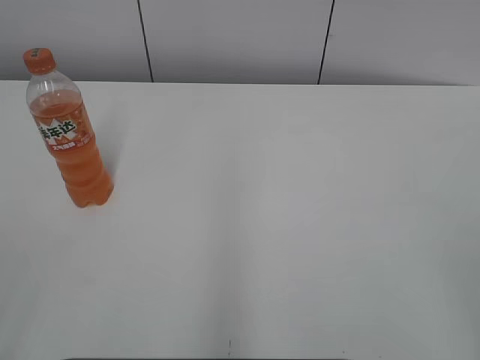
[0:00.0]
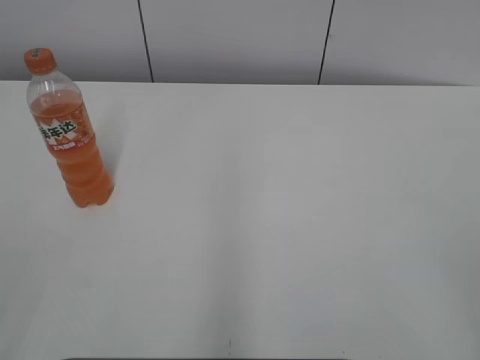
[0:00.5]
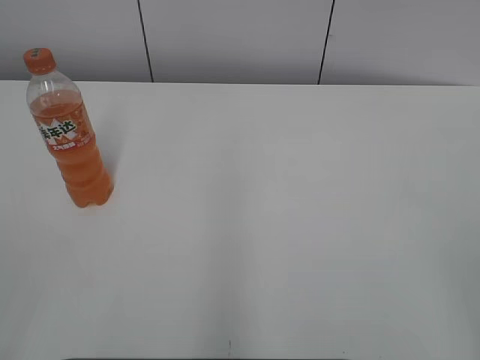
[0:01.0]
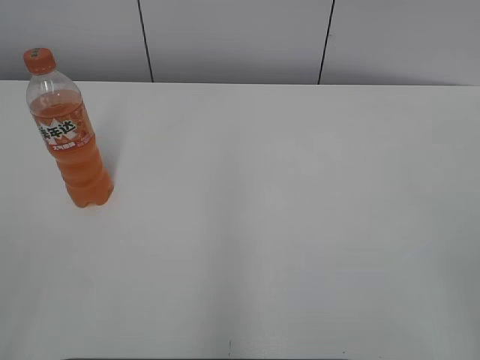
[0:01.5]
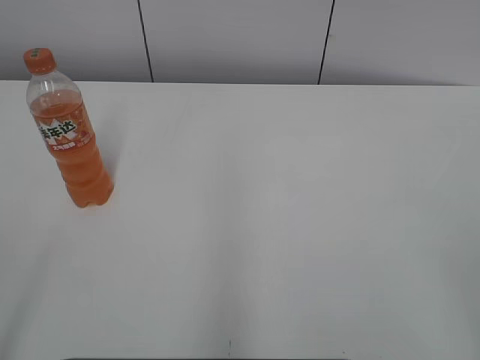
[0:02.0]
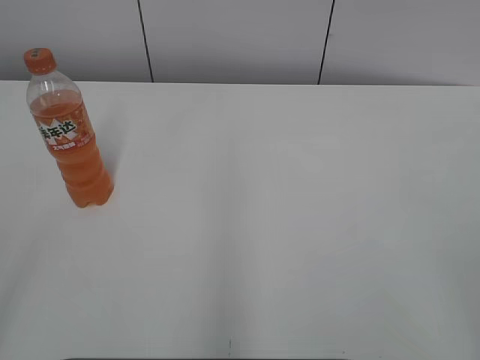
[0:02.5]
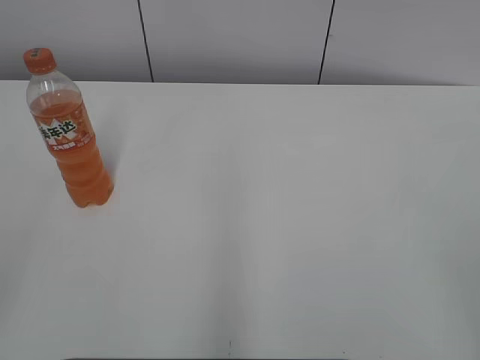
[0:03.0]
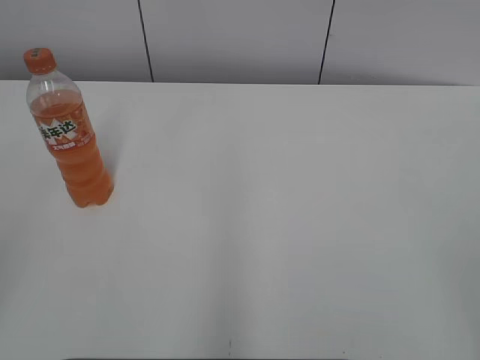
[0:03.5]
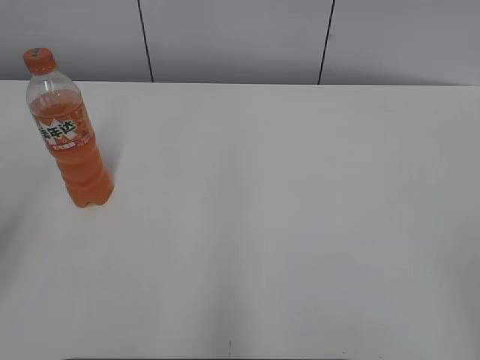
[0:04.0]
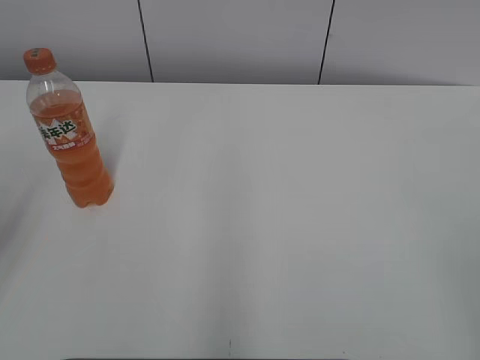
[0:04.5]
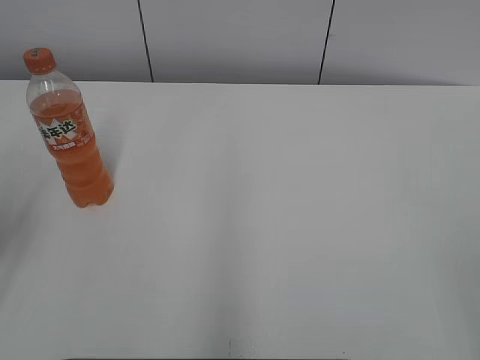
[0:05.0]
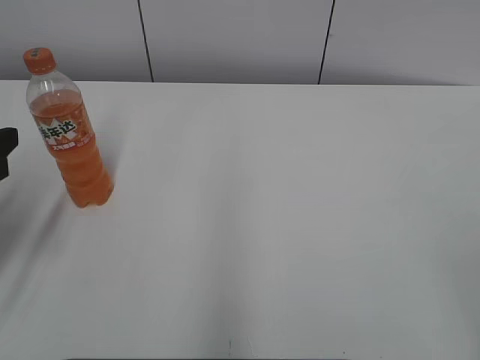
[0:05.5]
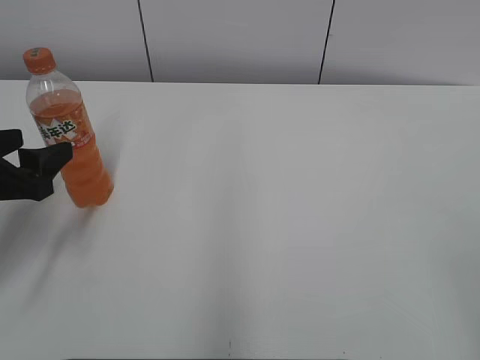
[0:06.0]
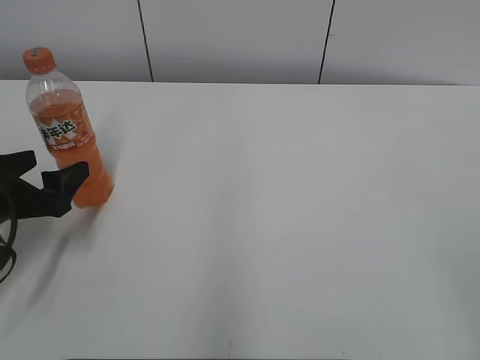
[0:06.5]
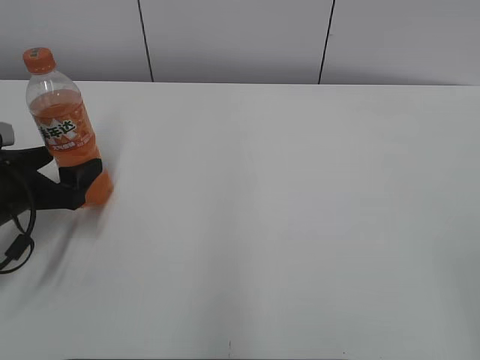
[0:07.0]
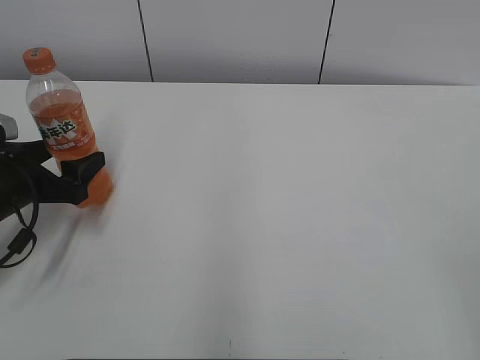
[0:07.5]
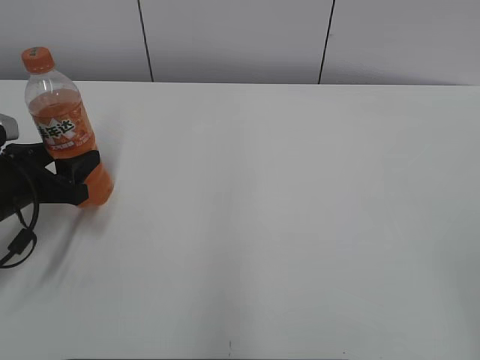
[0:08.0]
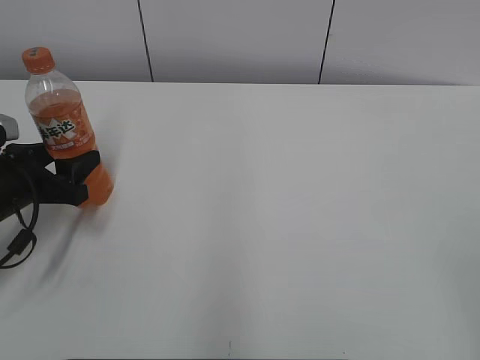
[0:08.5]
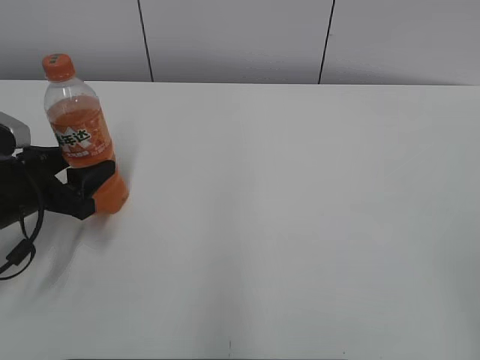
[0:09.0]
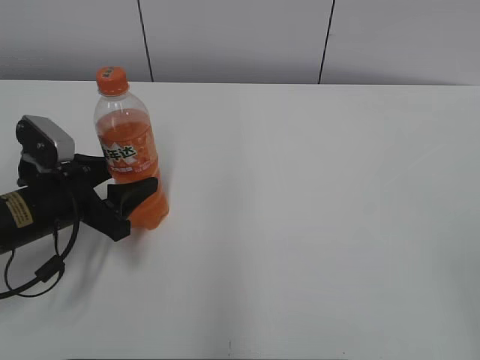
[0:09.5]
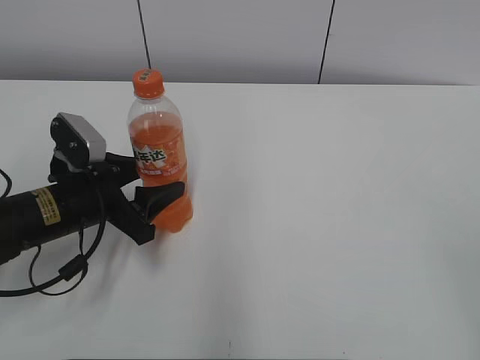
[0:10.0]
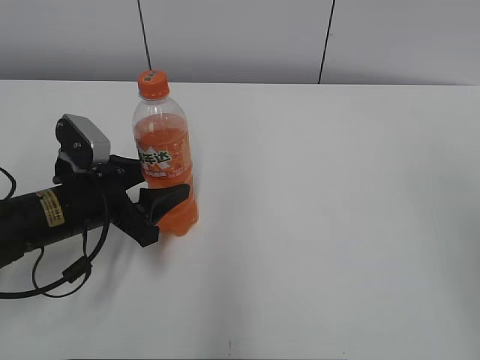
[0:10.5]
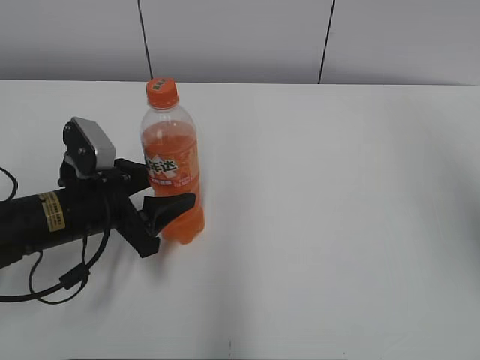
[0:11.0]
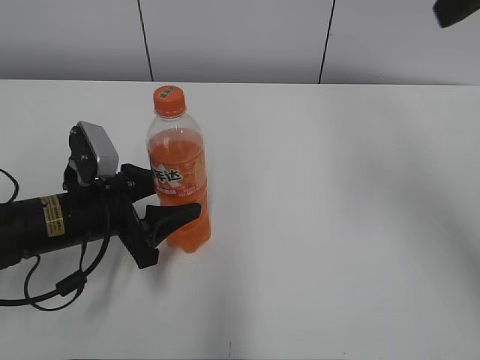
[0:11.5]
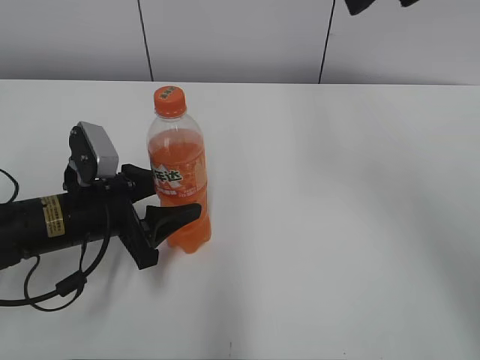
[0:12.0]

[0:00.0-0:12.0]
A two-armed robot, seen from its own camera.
Step, 0:00.0 to 0:08.5: Grab the Mirinda with the left hand.
Step, 0:09.0 to 0:11.0: Move the Mirinda from left to right.
0:04.0 to 0:06.0: The left gripper moves downward and forward, roughly 15 cm.
0:06.0 to 0:08.0: The left gripper travels downward by approximately 5 cm.
0:08.0 to 0:10.0: The left gripper goes about 10 cm to the right.
0:10.0 to 0:12.0: The right gripper is displaced forward and to the left by approximately 35 cm.

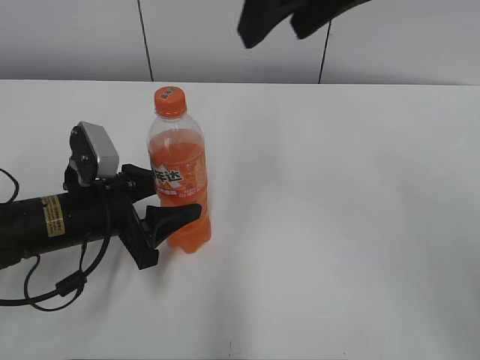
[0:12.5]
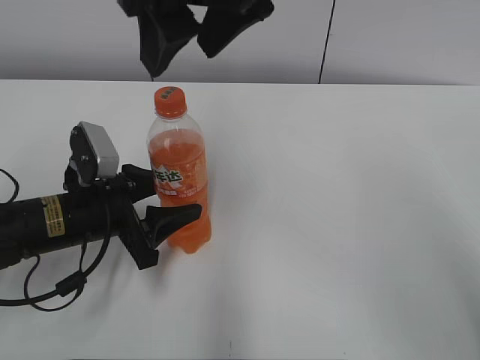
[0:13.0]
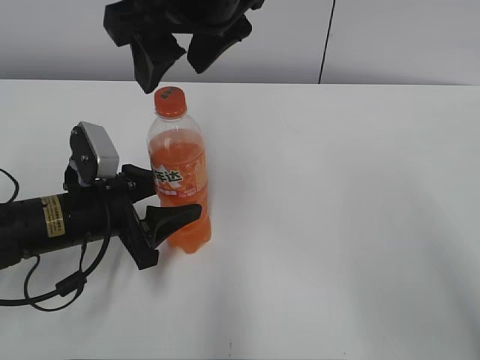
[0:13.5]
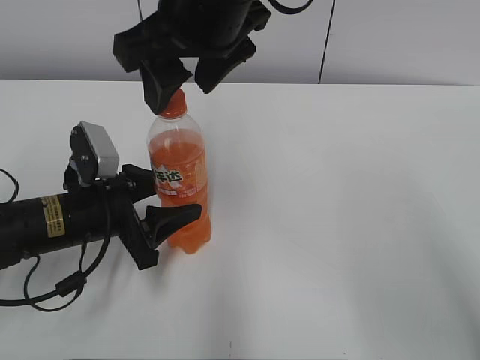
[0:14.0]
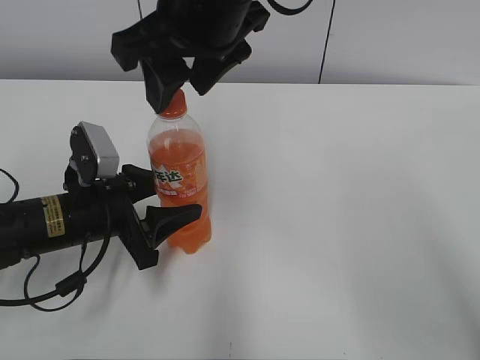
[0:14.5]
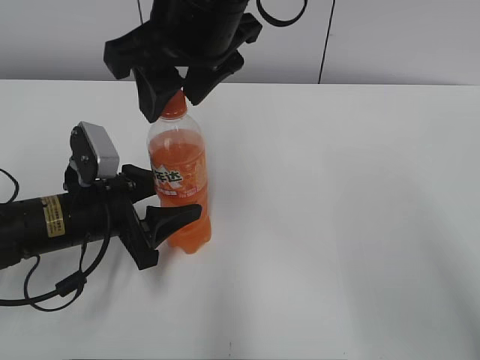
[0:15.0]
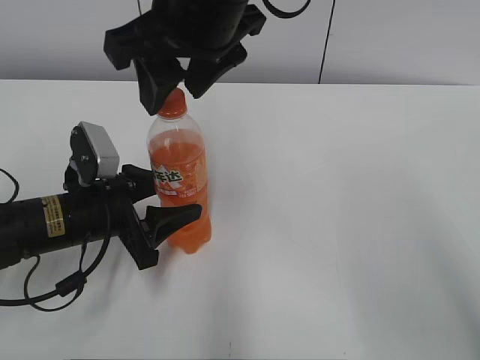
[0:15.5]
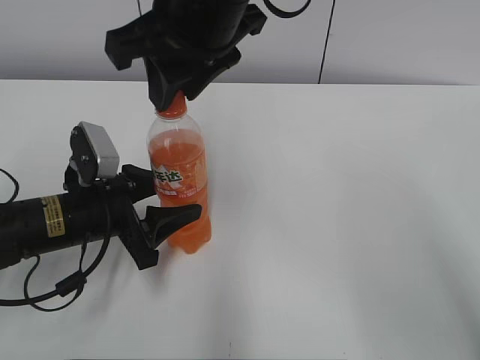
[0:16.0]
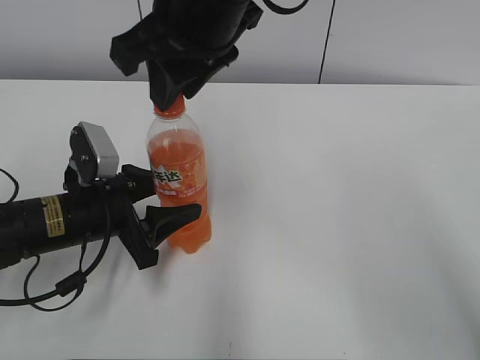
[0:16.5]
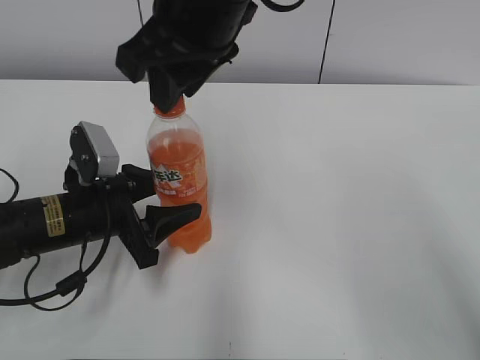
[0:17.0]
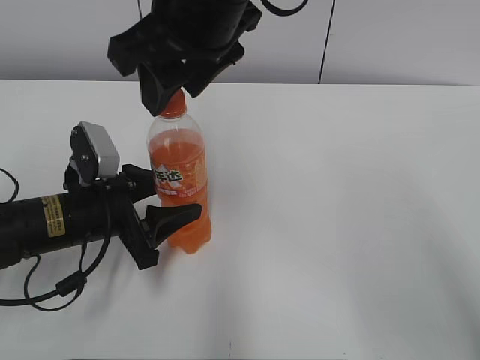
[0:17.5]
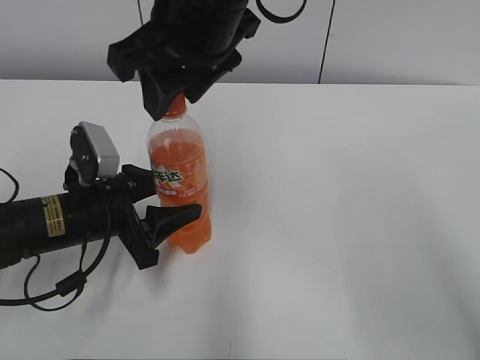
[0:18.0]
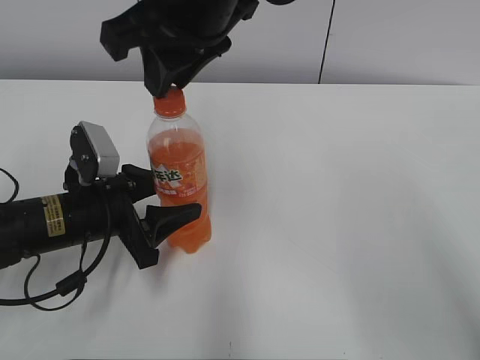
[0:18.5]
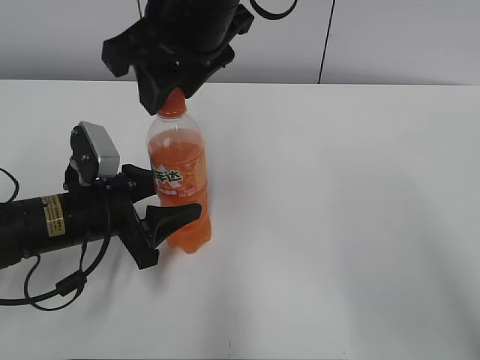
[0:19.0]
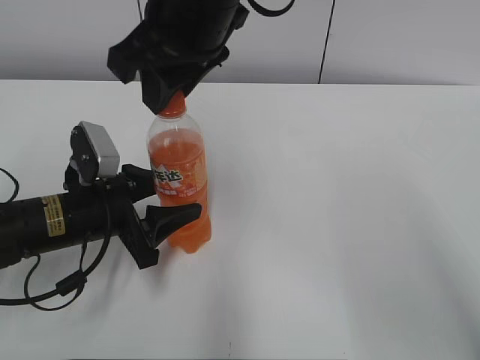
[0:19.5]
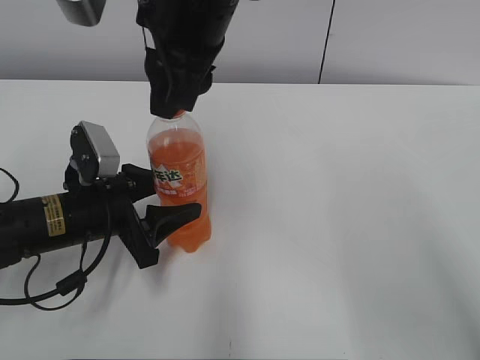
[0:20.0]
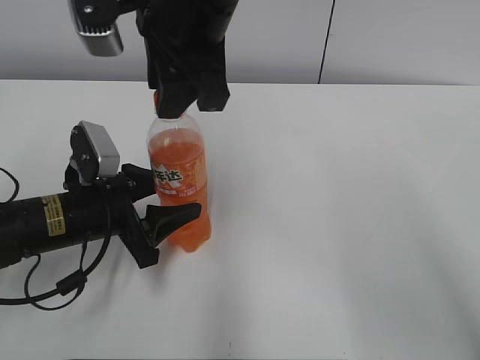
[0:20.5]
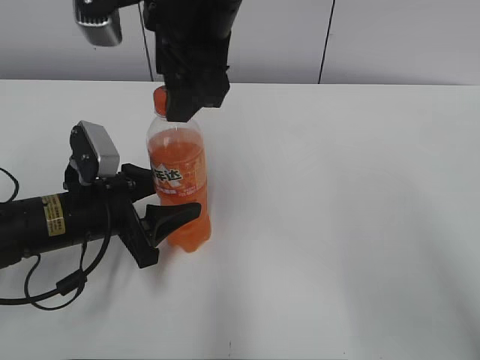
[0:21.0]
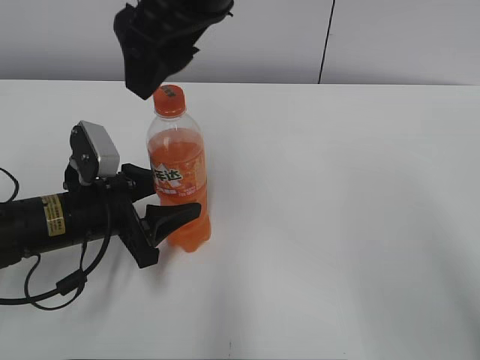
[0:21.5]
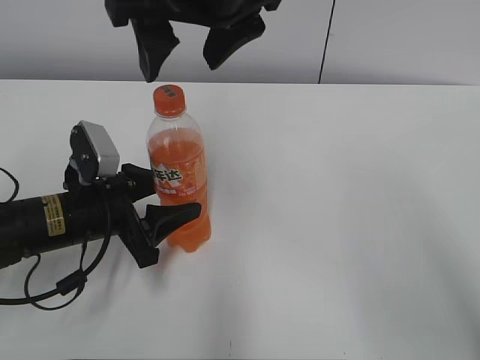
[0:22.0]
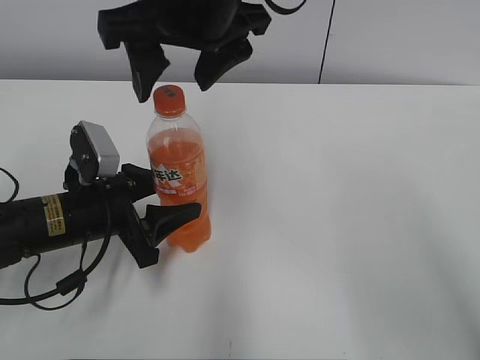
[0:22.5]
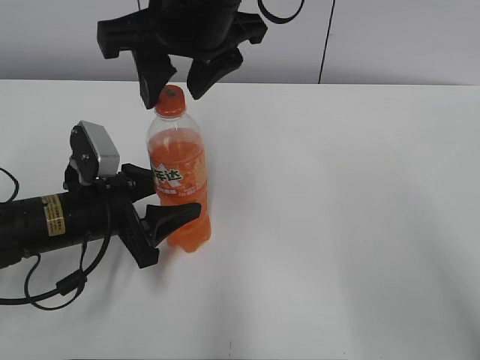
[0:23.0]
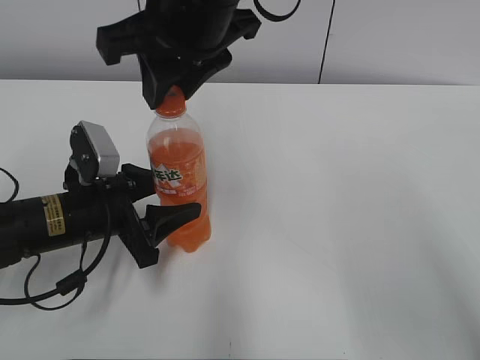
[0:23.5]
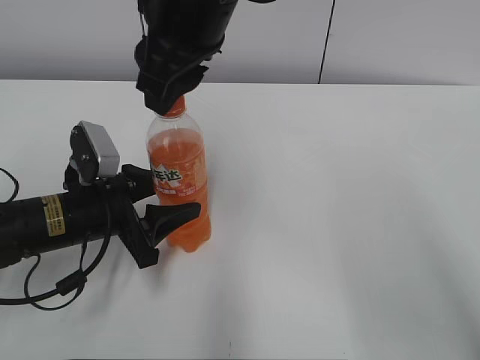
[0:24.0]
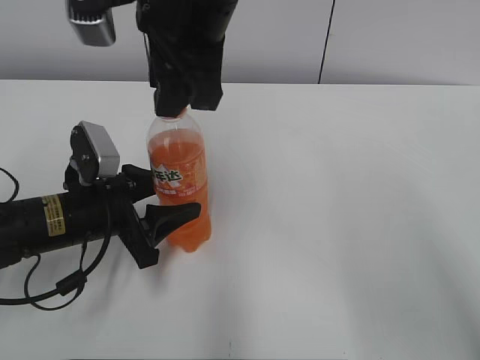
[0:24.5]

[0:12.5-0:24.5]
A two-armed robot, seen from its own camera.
0:12.5 to 0:14.5: The right gripper is displaced to the left and downward by roughly 10 cm.
0:14.5 to 0:16.5: The right gripper closes up.
0:16.5 to 0:18.5: The right gripper opens, then closes once more.
0:20.5 to 0:22.5: The right gripper opens.
0:22.5 to 0:24.5: The right gripper closes its fingers.

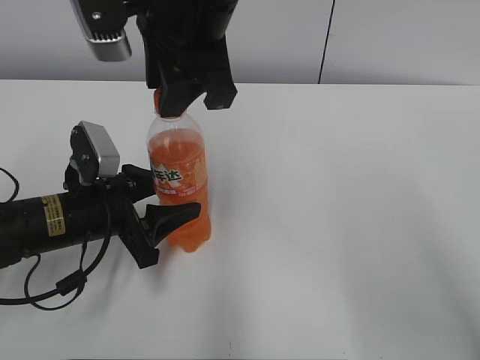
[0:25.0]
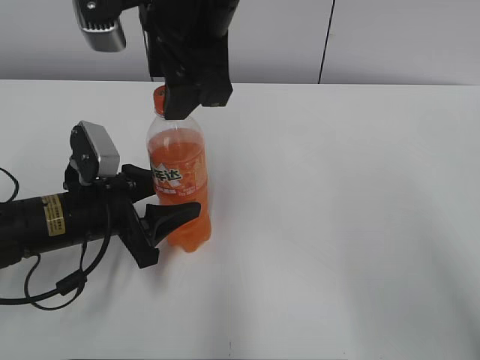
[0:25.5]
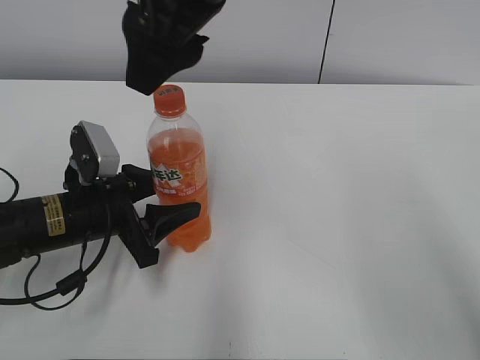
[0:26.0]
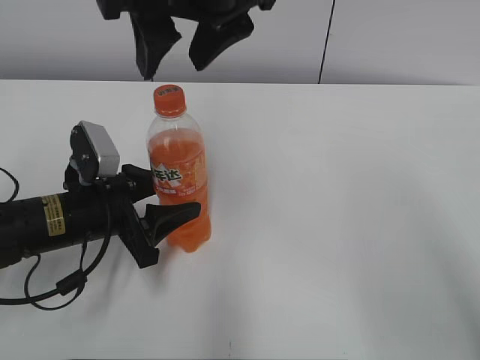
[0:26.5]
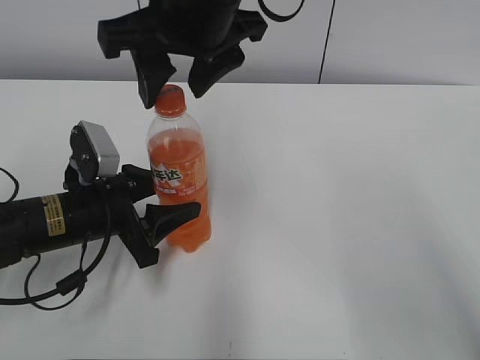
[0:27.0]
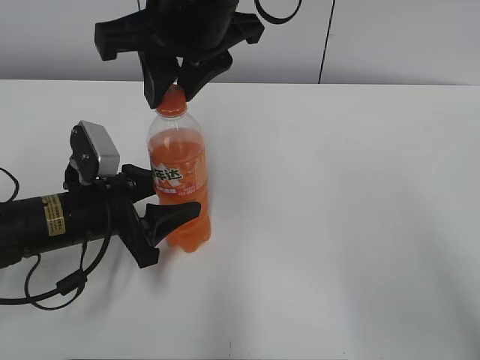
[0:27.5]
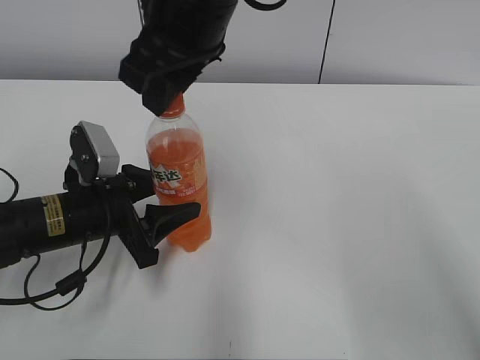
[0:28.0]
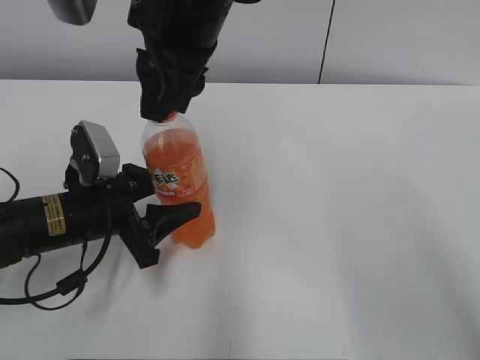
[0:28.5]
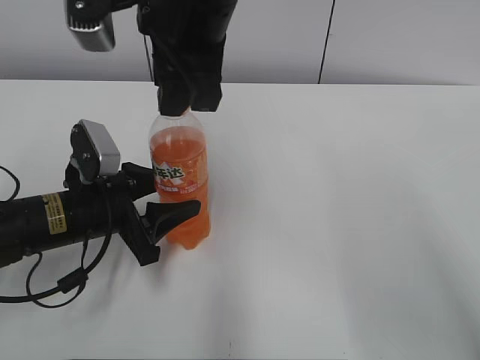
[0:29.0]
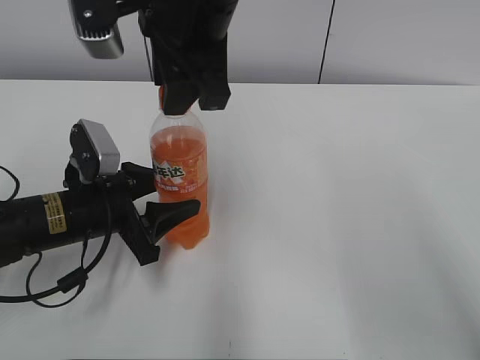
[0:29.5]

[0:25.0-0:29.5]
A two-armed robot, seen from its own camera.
0:25.0 to 0:27.0: The right gripper opens its fingers.
0:27.0 to 0:29.5: The right gripper closes up.
